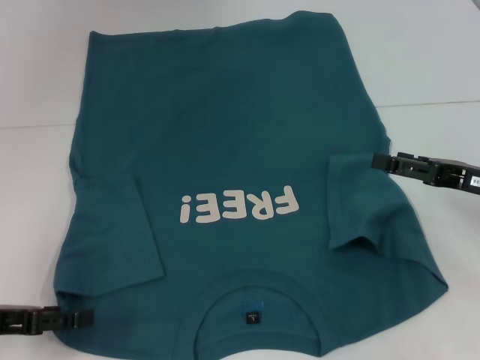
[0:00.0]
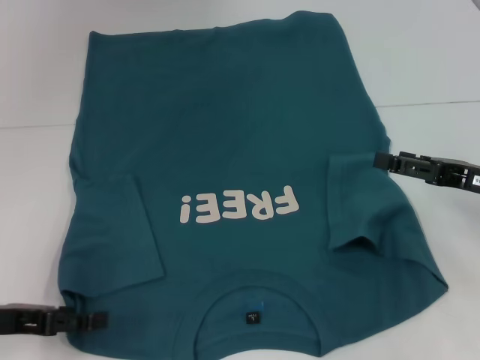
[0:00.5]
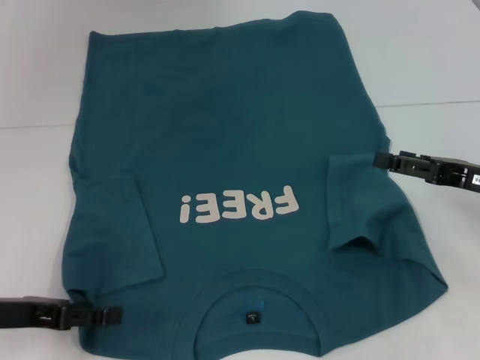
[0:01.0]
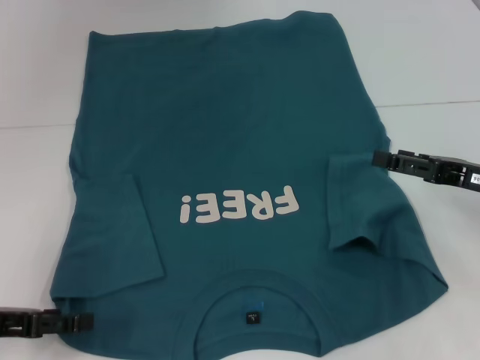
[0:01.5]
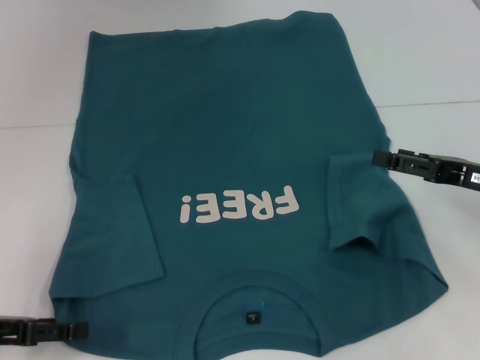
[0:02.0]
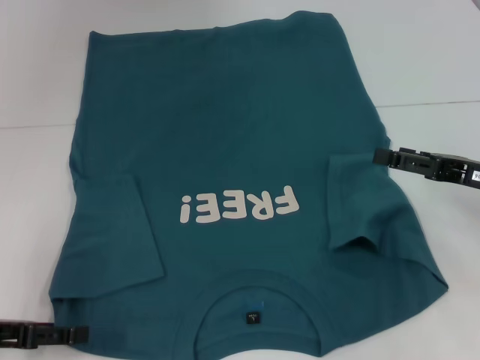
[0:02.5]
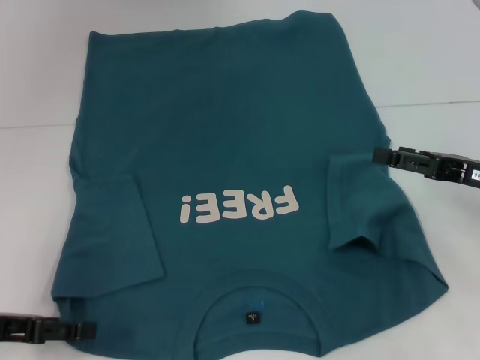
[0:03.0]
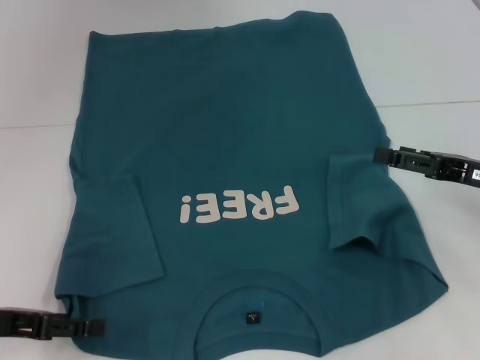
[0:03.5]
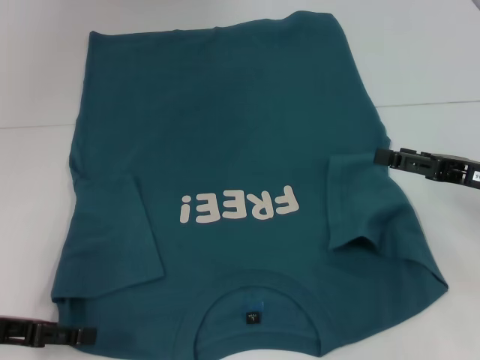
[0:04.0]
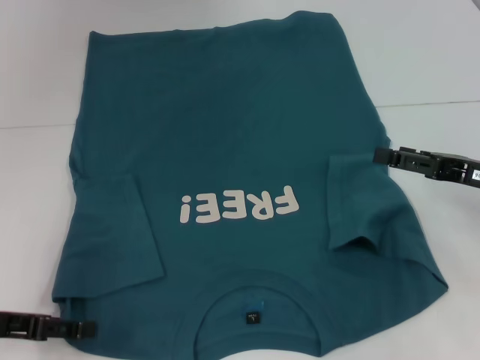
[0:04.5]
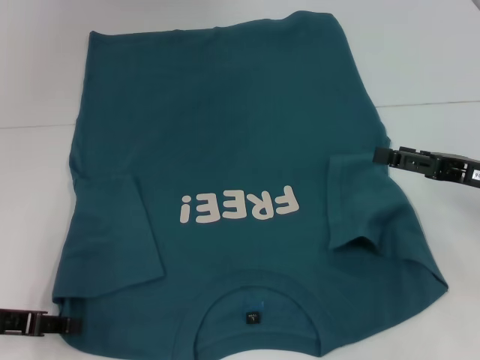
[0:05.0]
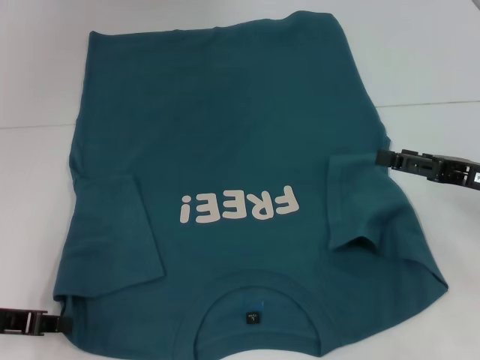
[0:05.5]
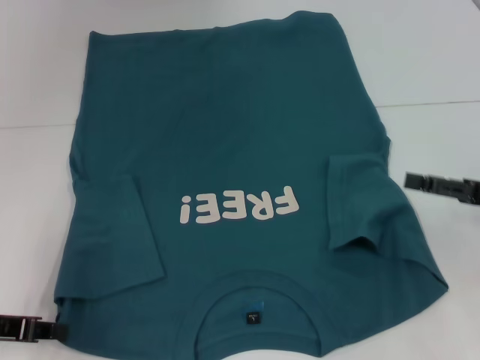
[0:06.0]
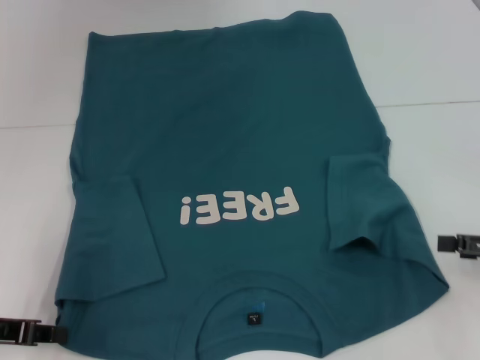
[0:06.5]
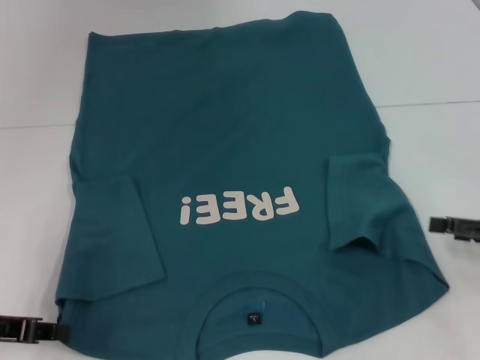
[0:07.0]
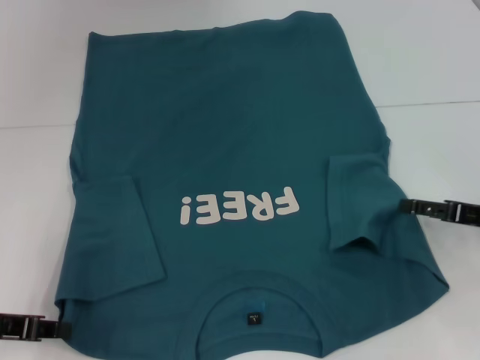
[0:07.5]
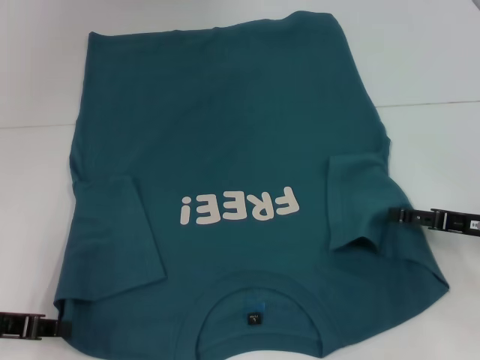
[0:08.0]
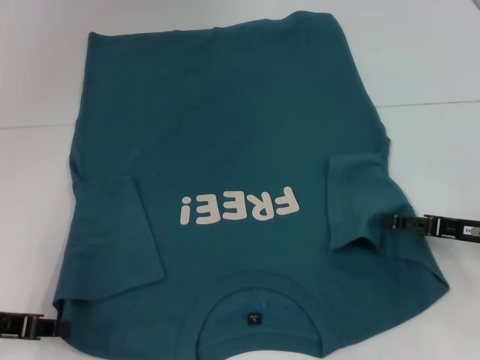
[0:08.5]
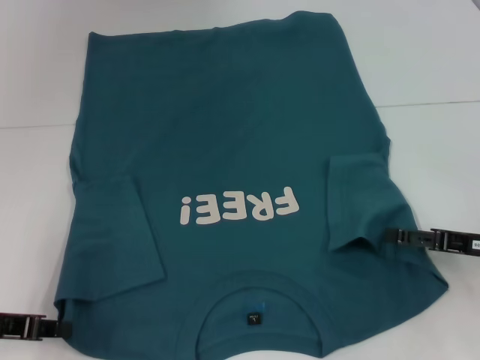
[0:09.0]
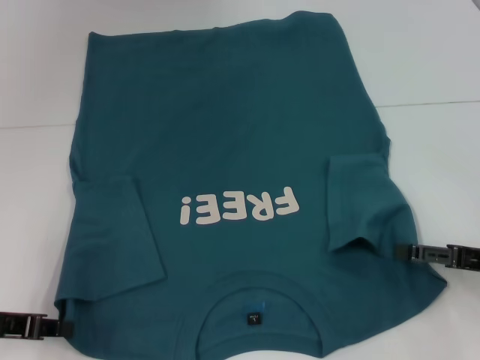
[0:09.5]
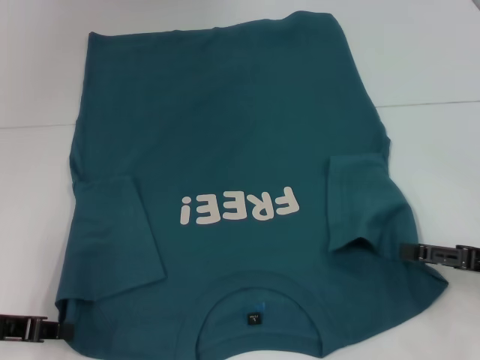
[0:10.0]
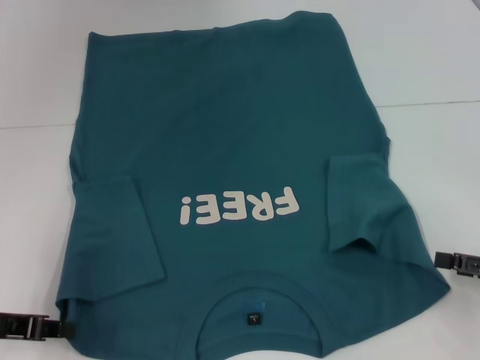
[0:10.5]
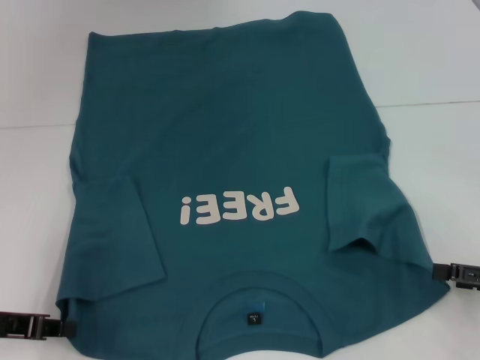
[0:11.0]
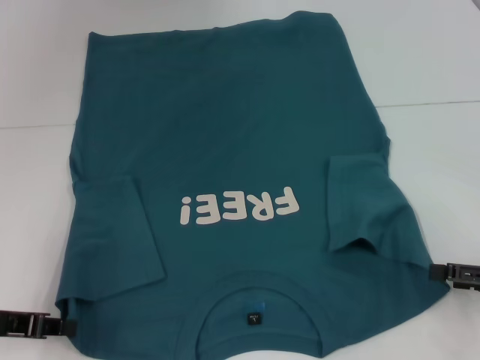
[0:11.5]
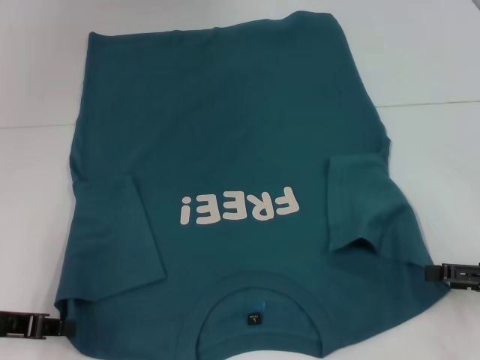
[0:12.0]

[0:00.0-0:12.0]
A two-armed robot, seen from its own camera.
Step, 0:00.0 to 0:05.5: Grab the bottom left corner with your left hand.
0:00.0 to 0:04.0: The grippers stay close to where they were, moving slightly.
0:04.0 to 0:06.0: The left gripper closes.
0:06.0 to 0:08.0: The right gripper moves roughly 5 cm.
0:08.0 to 0:10.0: The right gripper ends up about 5 cm from where it was.
0:10.0 to 0:12.0: The grippers move only a little.

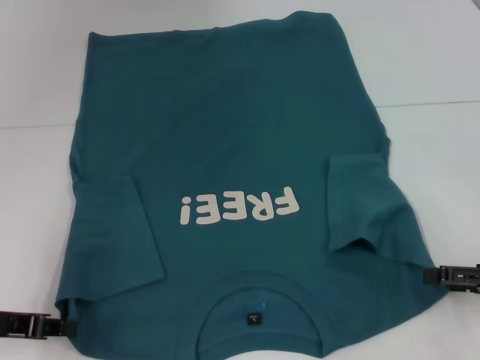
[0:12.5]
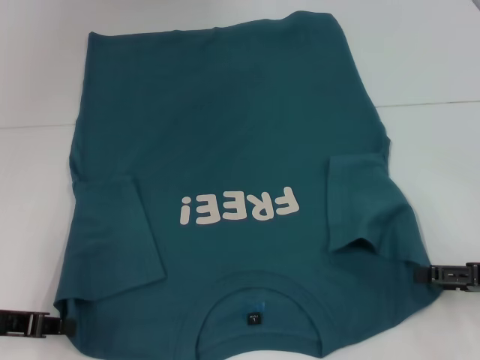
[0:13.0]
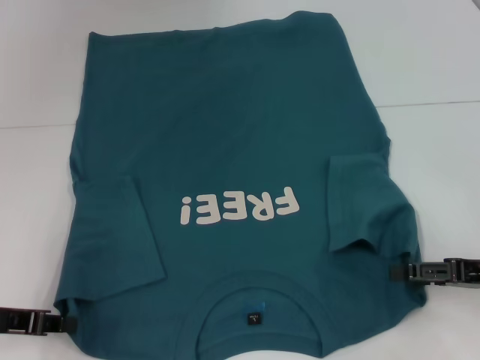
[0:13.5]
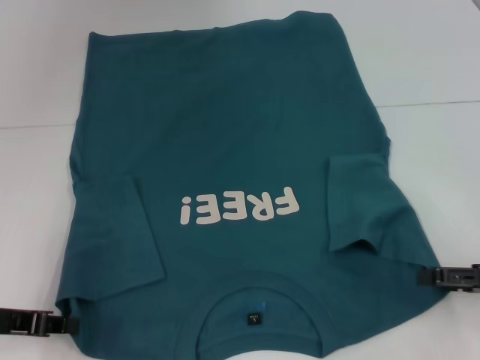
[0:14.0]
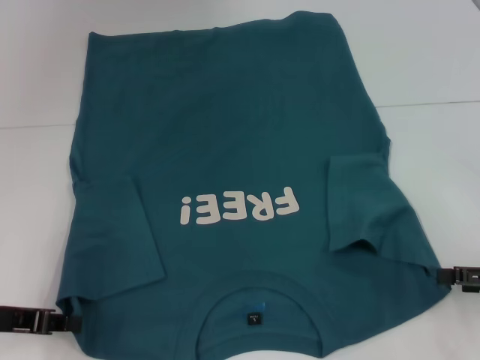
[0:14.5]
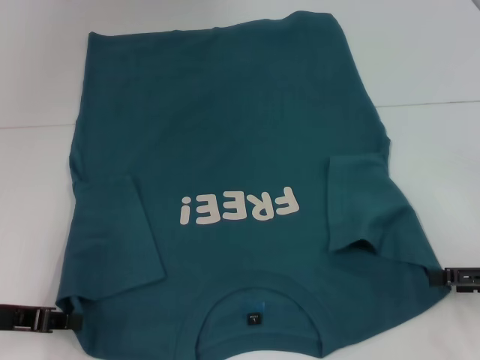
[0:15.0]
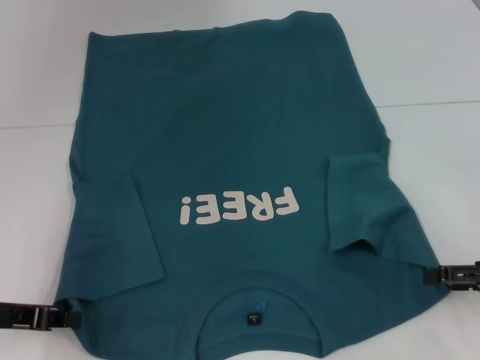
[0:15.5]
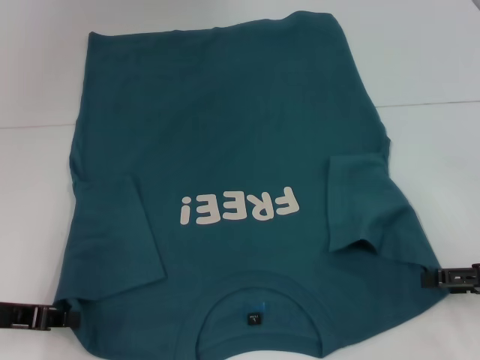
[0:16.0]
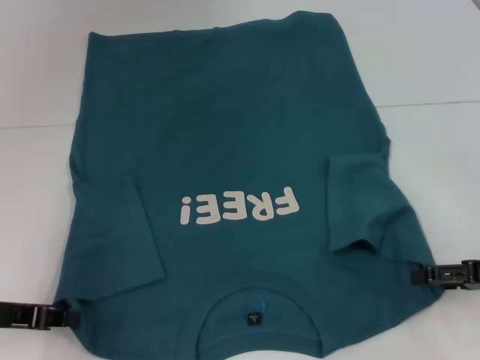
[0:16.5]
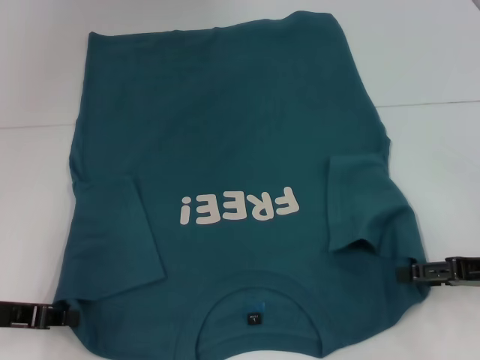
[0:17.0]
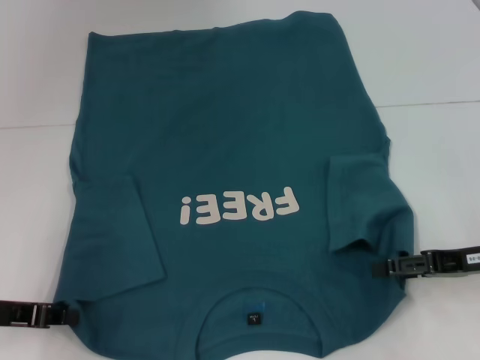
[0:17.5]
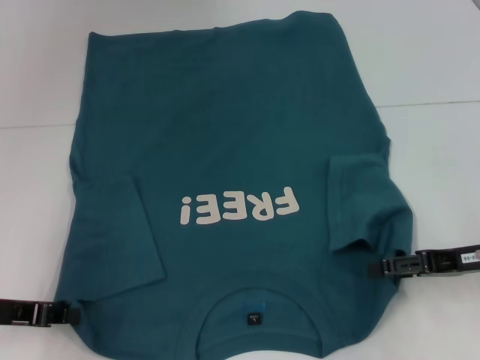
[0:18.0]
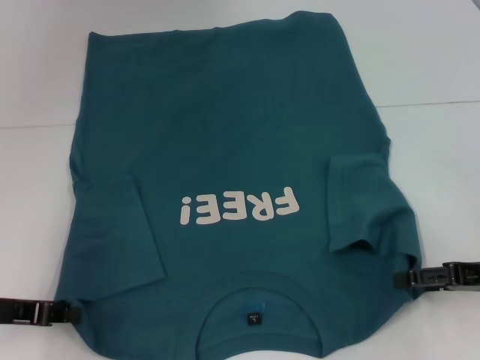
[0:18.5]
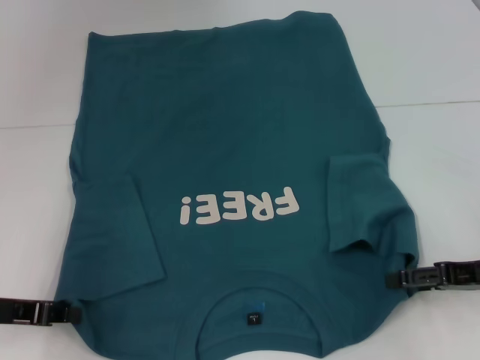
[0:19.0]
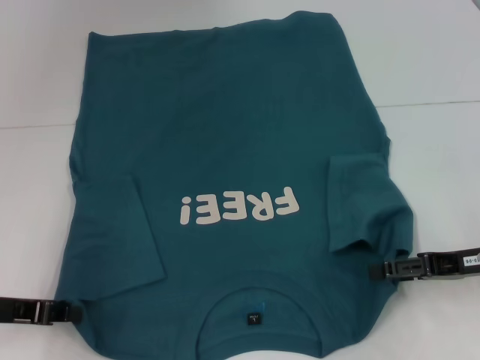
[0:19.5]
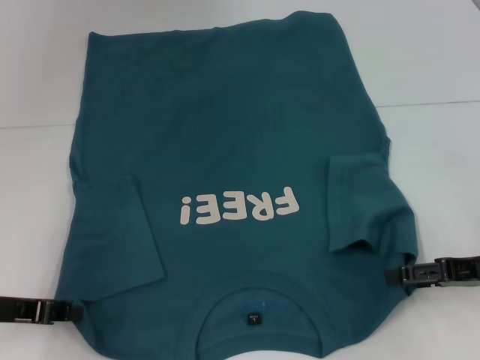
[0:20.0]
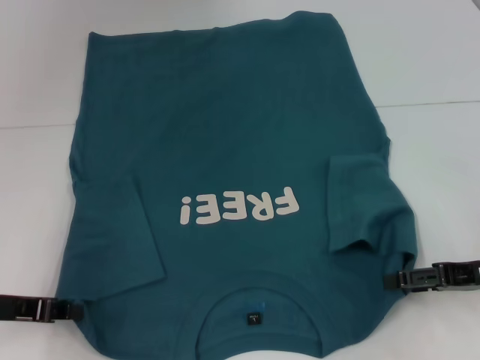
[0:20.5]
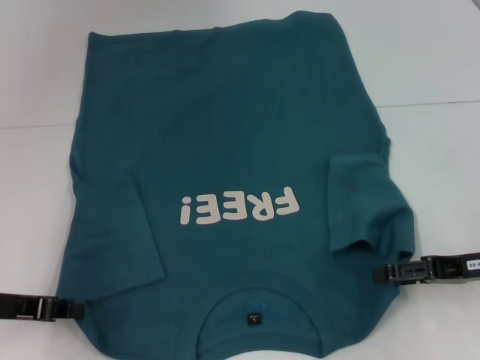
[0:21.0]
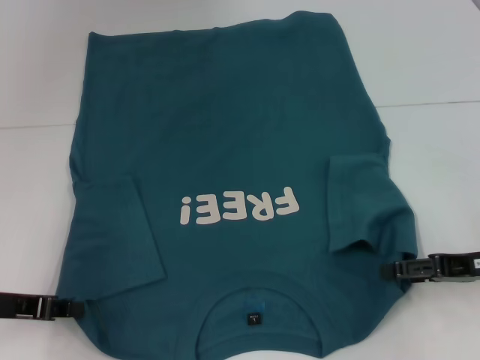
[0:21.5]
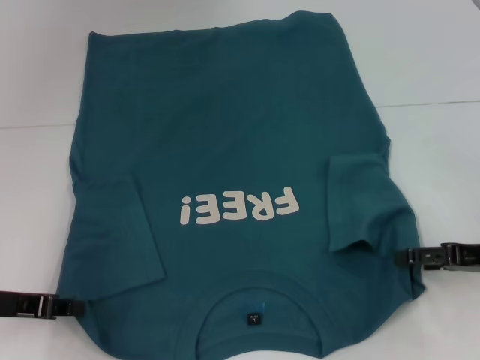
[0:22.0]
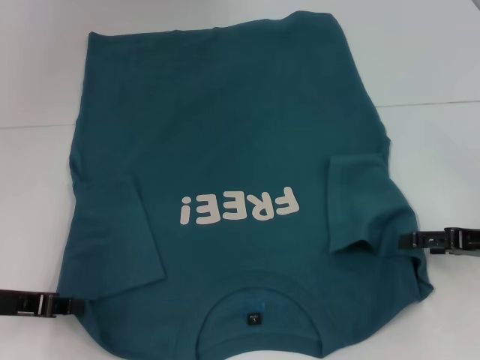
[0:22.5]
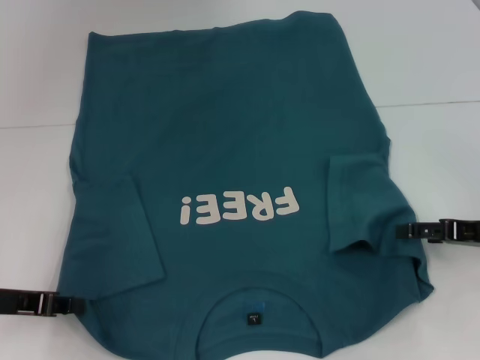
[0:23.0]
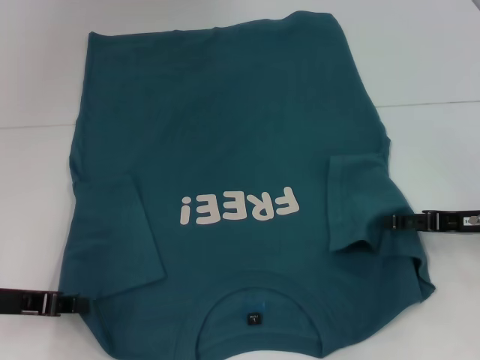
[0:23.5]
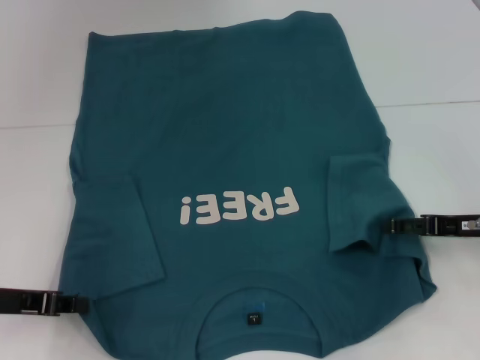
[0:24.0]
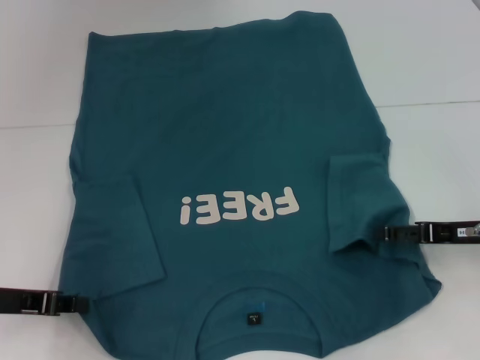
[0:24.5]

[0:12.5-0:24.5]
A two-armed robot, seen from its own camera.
0:12.5 to 0:16.5: There are only small adjustments of the grippers.
0:16.5 to 0:22.5: There are only small adjustments of the grippers.
0:22.5 to 0:24.5: The grippers move only a little.

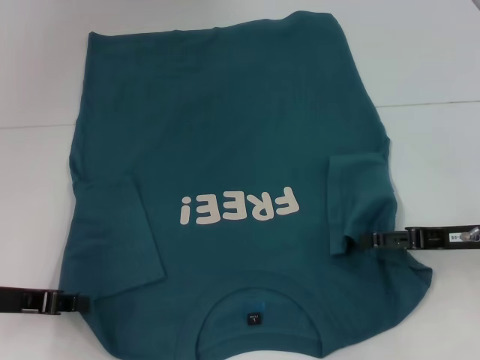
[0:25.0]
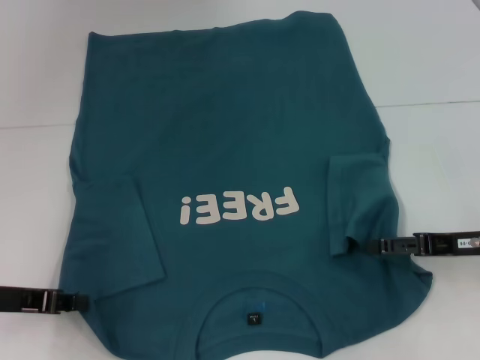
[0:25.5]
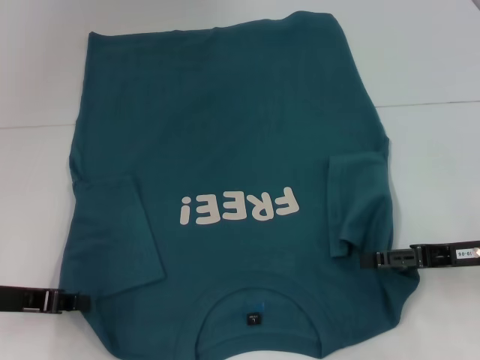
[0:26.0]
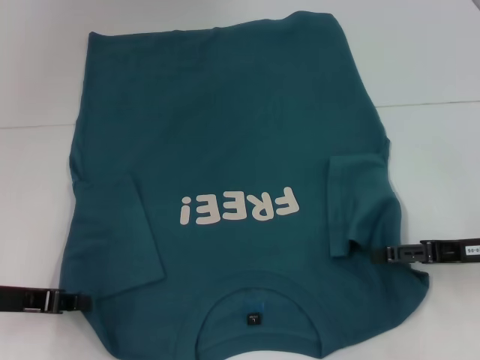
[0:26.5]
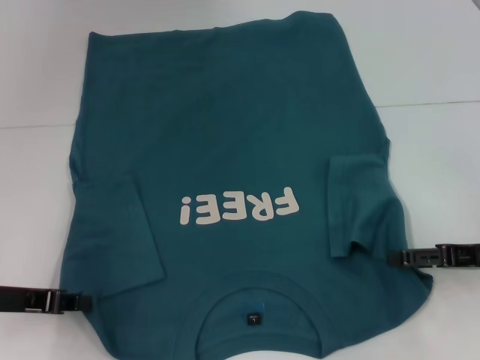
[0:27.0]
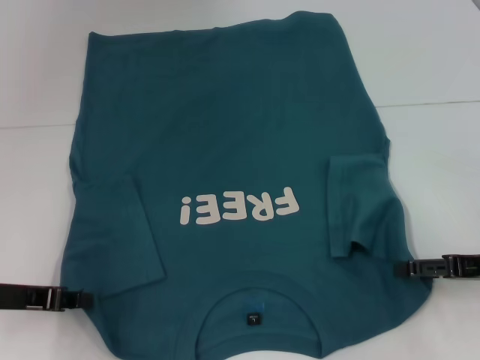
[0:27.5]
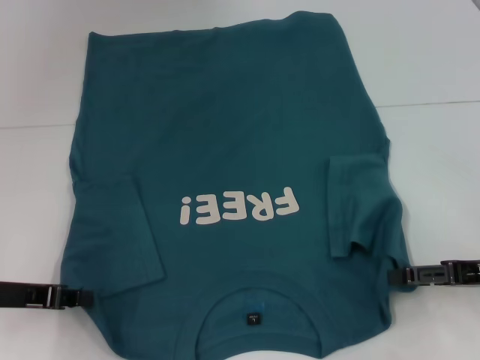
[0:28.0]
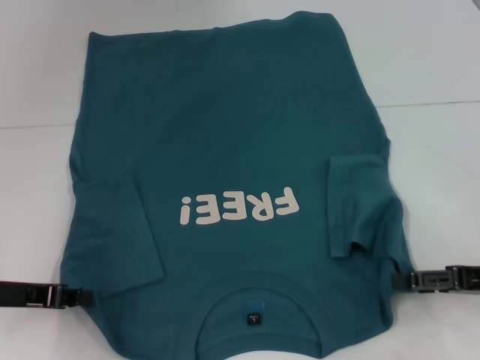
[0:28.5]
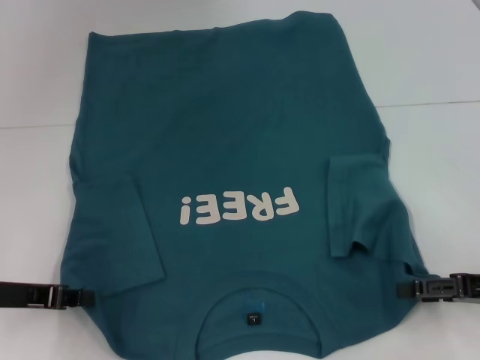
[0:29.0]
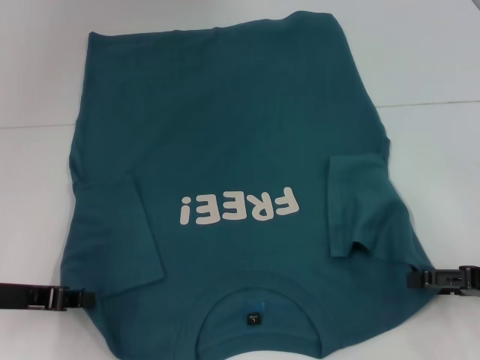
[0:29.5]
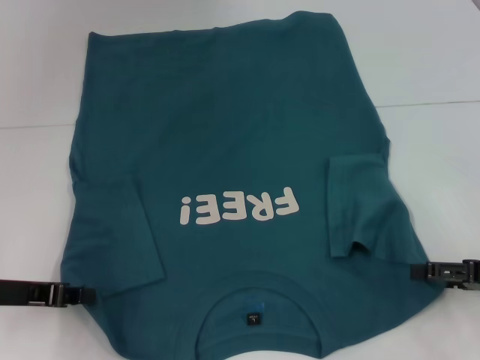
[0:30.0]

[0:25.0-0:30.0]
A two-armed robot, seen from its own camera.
0:25.0 to 0:27.5: There are only small adjustments of the grippers.
0:27.5 to 0:30.0: There are only small adjustments of the grippers.
